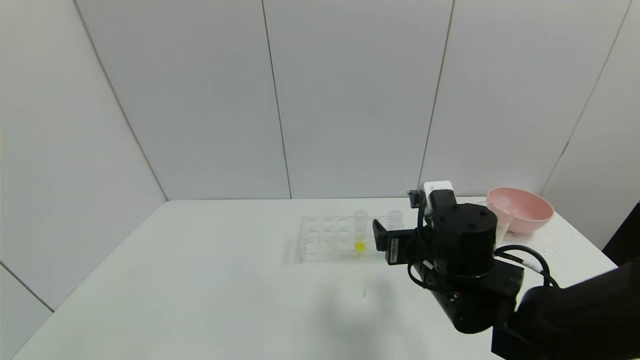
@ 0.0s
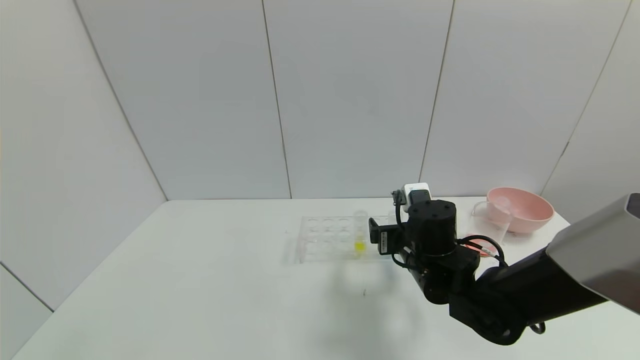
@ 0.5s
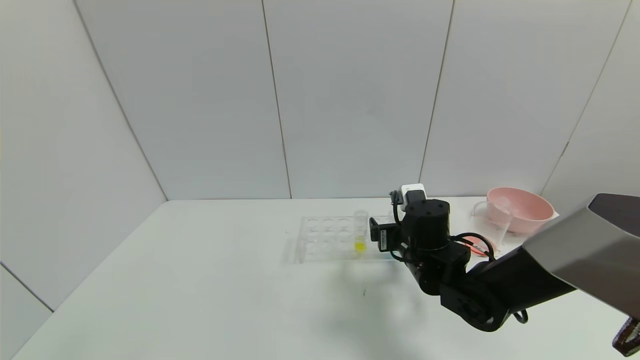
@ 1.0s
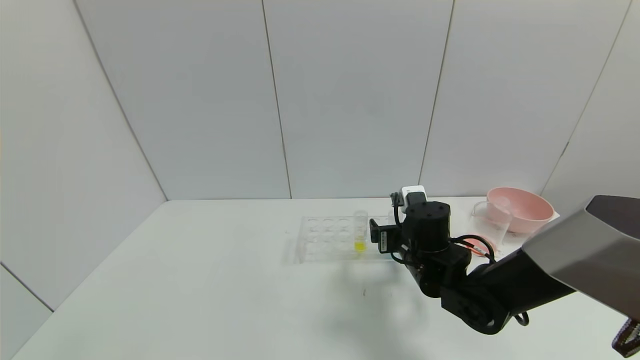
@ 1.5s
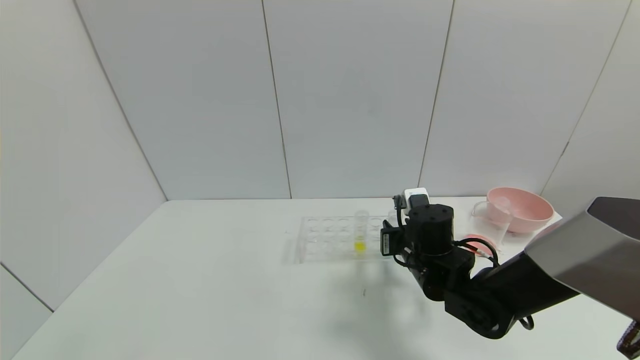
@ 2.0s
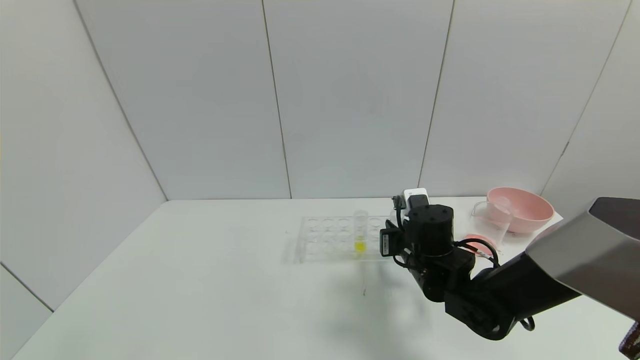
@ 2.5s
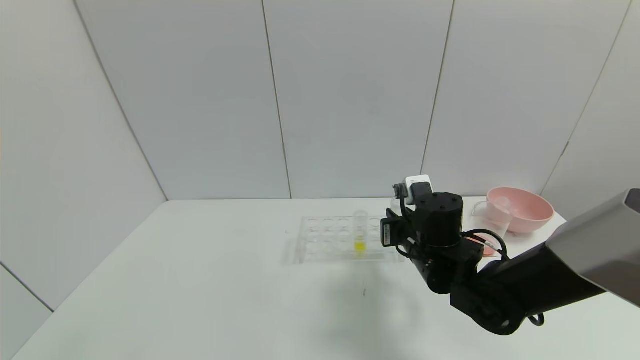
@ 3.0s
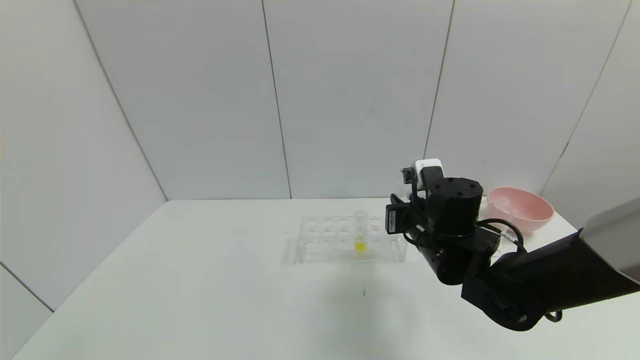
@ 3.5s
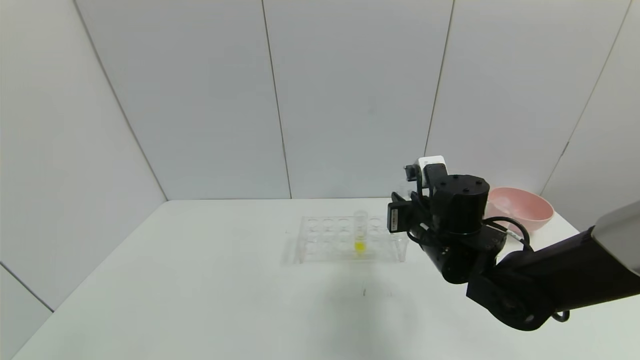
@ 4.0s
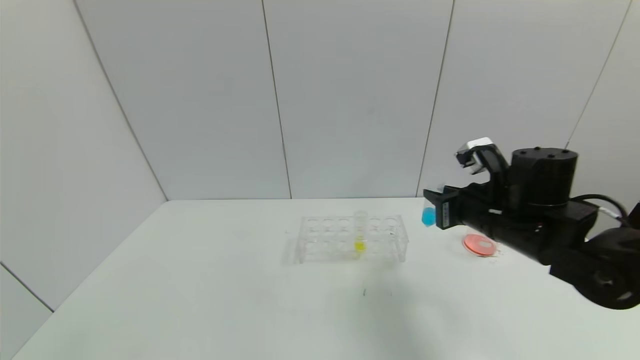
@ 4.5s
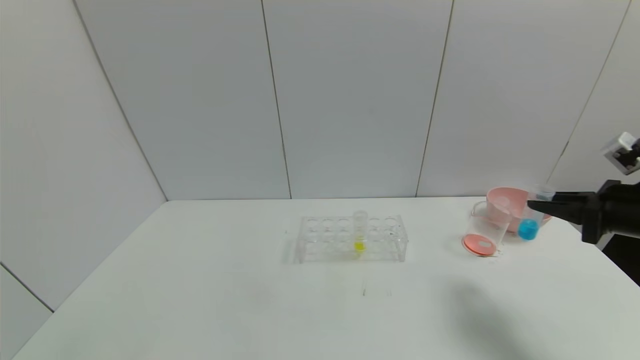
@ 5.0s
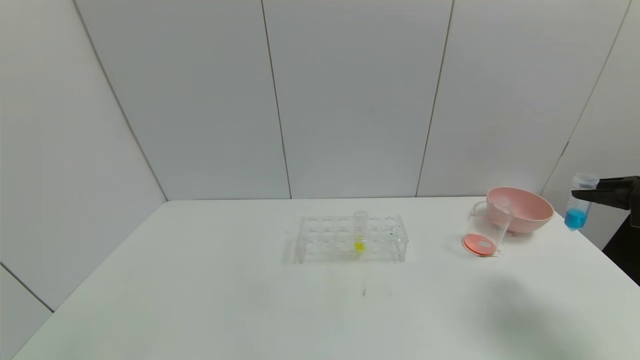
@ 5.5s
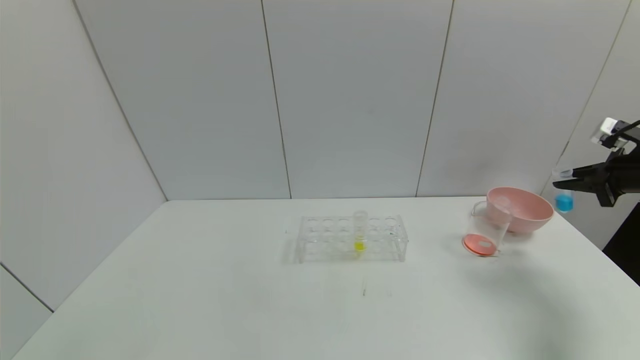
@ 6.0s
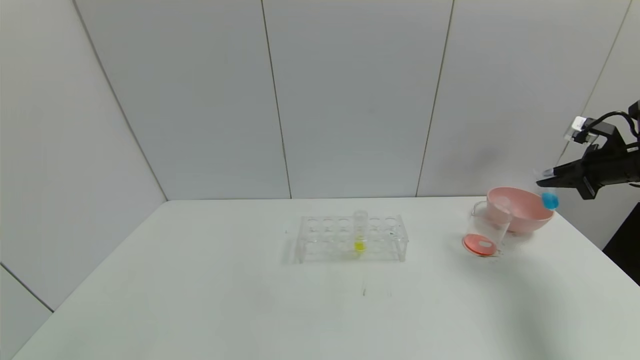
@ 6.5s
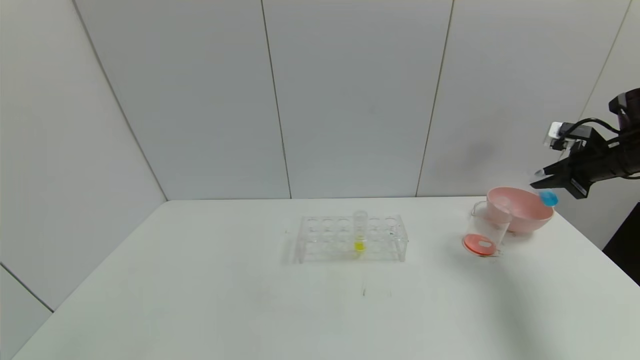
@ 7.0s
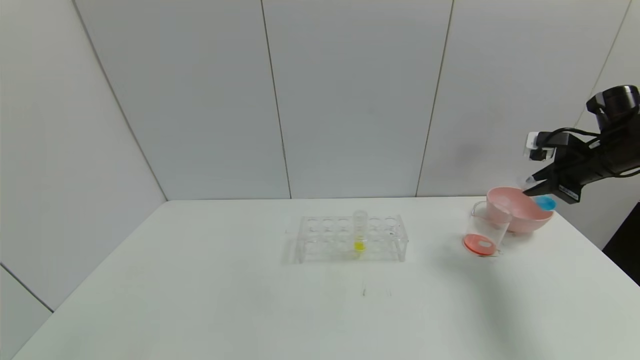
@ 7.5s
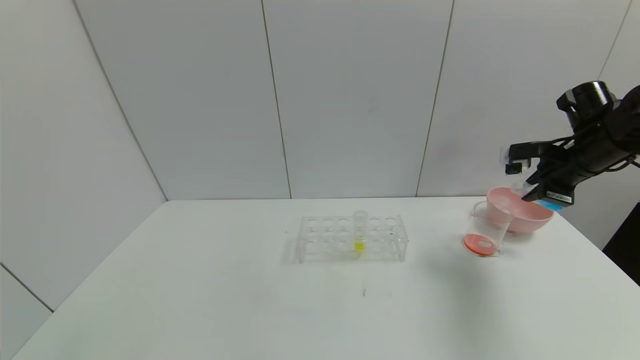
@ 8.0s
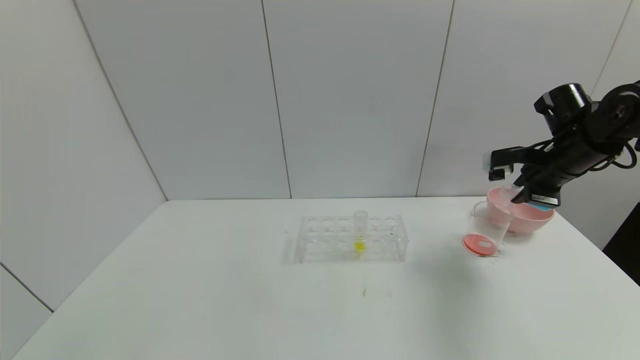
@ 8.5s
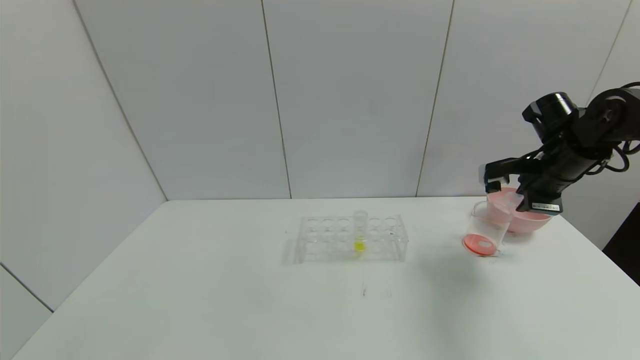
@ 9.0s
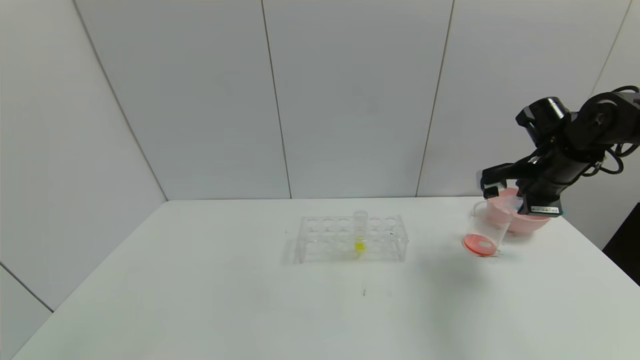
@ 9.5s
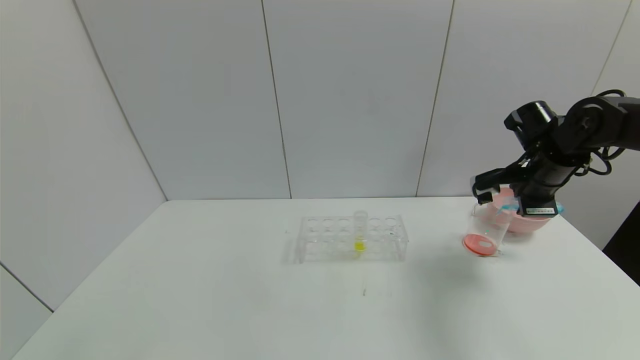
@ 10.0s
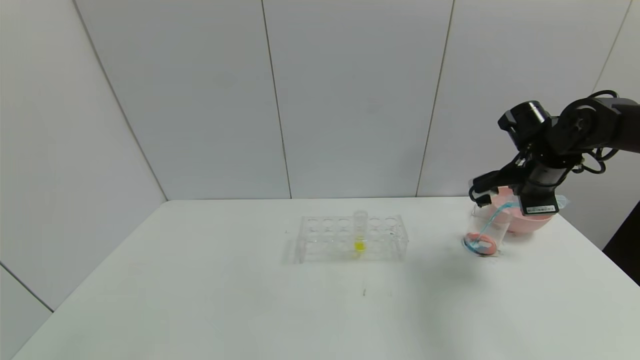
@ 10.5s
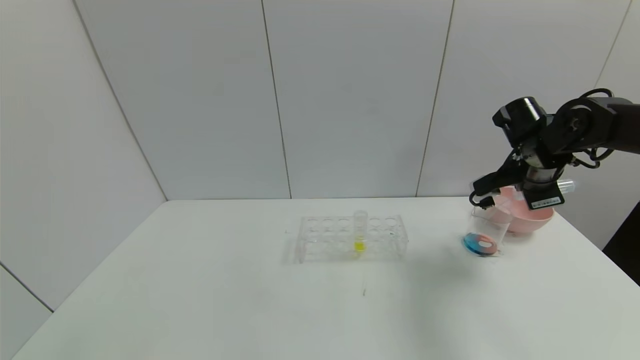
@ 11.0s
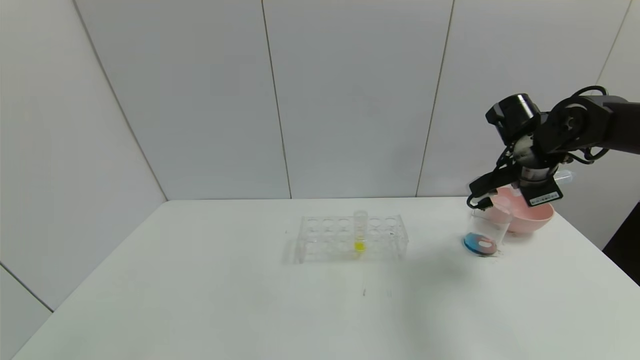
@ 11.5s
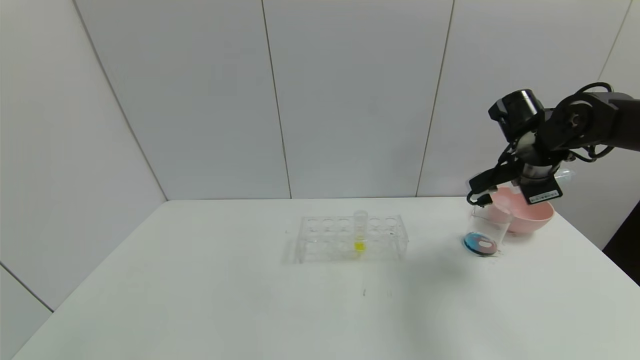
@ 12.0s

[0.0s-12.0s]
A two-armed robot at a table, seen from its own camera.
Task of the whole recording: pick up the test tube with red pigment and the test tube with blue pigment by grippers and pour them into the container.
Step, 0.0s to 4.5s: Pick up the test tube containing the blue reagent with right gripper.
0.0s to 2.0s: The right gripper heads forward, covering some 5 cm, and closes up.
2.0s to 4.0s: The right gripper moves upward, roughly 5 cm.
4.0s to 6.0s: The right gripper heads to the right, covering roughly 35 cm.
6.0s to 8.0s: The right gripper goes some 10 cm to the left.
8.0s to 10.0s: The right gripper shifts by approximately 5 cm.

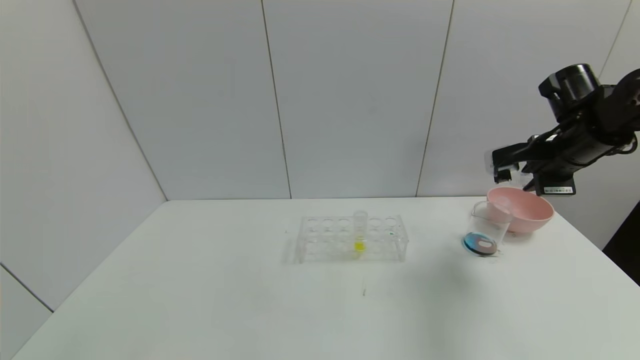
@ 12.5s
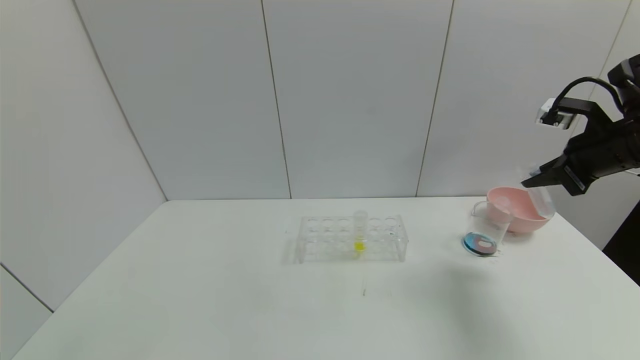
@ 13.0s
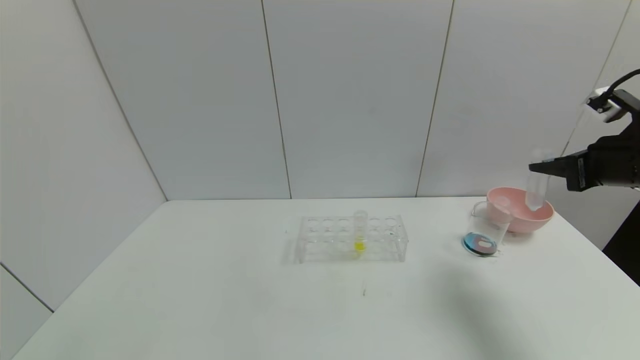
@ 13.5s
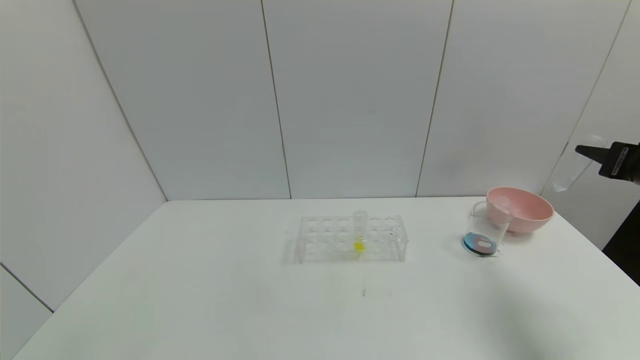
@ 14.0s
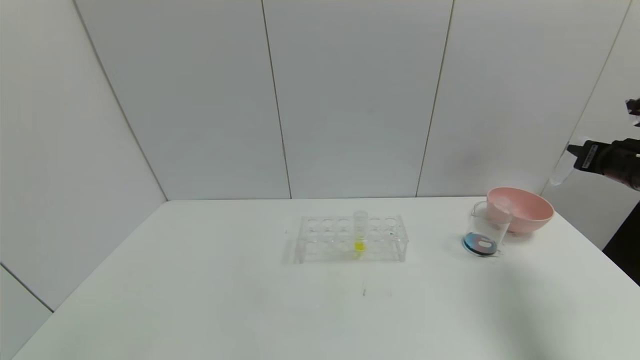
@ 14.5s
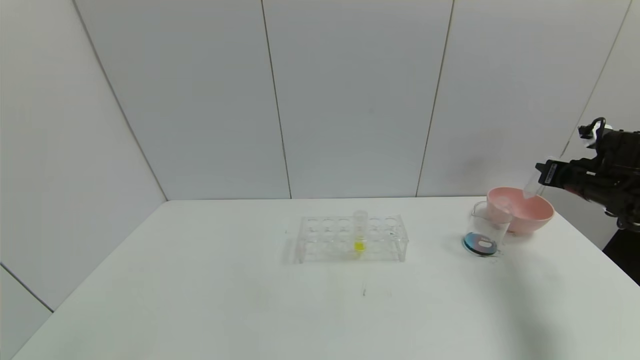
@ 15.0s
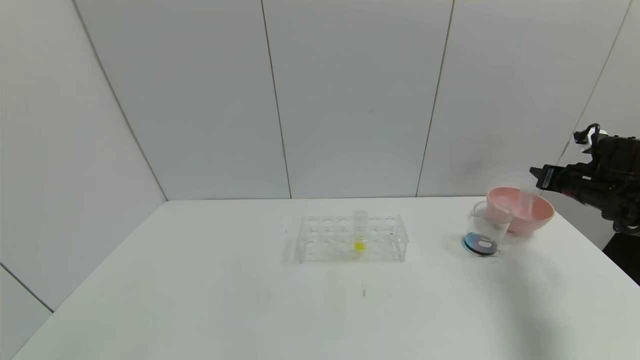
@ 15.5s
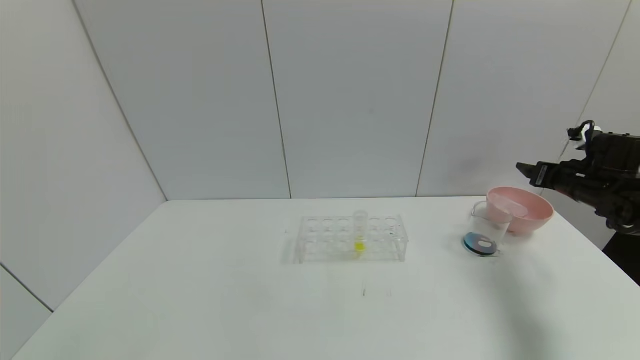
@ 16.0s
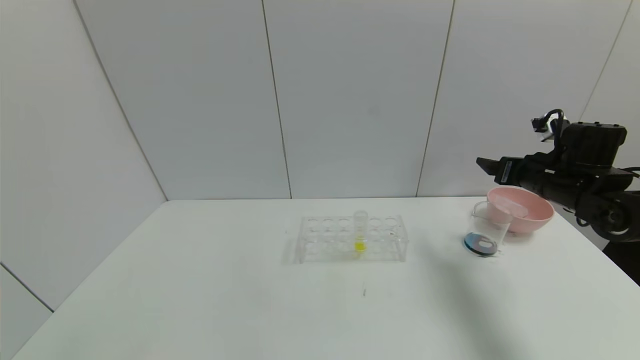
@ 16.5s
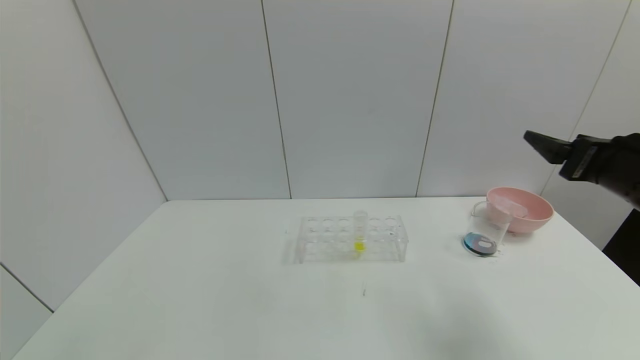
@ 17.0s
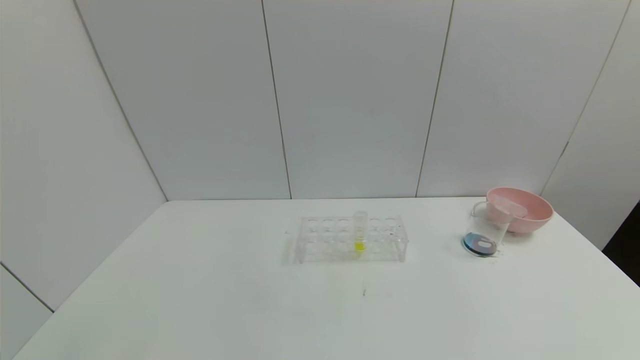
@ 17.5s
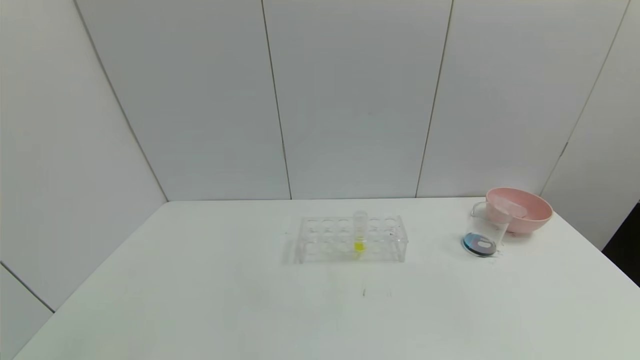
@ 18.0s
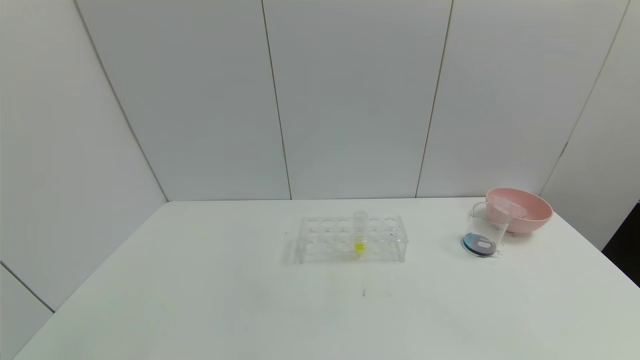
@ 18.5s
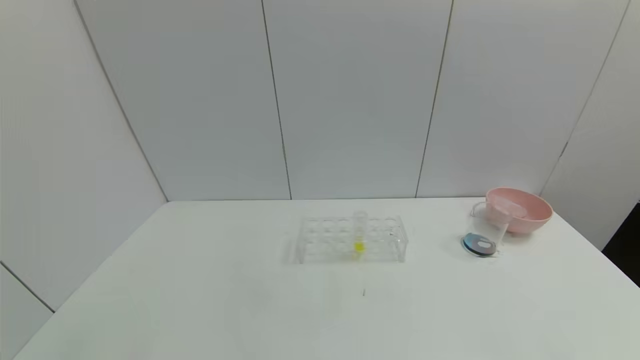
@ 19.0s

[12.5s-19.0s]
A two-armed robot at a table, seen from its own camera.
Task of the whole recording: pick up the test tube with red pigment and the test tube with blue pigment by grippers and pour them into the container.
Step, 14.0s to 17.0s: Place the test tube into the bowl with right gripper.
12.5s to 14.5s: The right gripper travels to the right by roughly 10 cm.
14.5s to 17.0s: The right gripper shifts approximately 15 cm to the left and backward, and opens its fingers.
17.0s to 19.0s: The right gripper travels backward and downward by approximately 30 cm.
